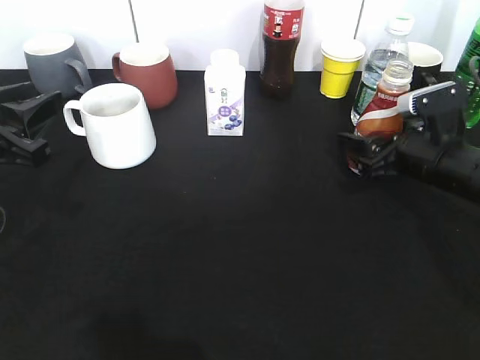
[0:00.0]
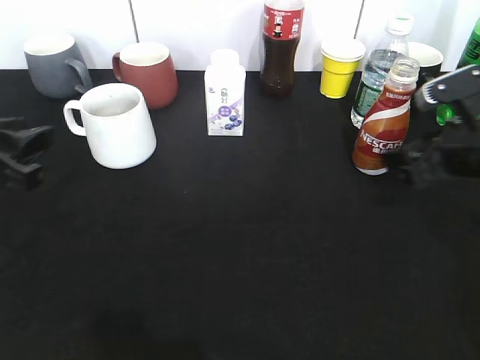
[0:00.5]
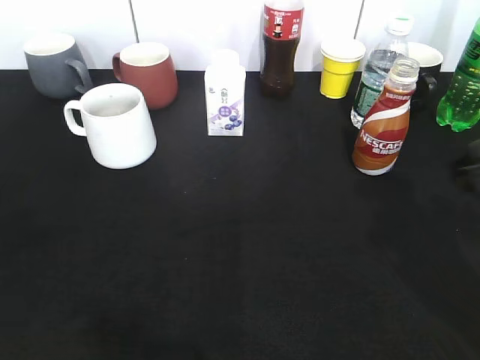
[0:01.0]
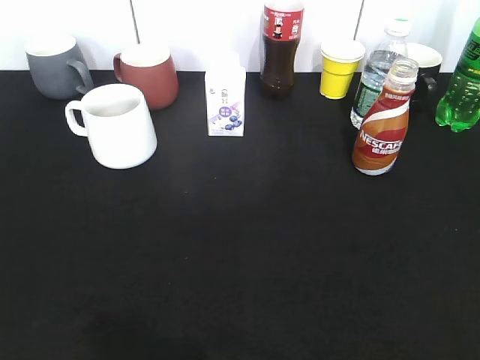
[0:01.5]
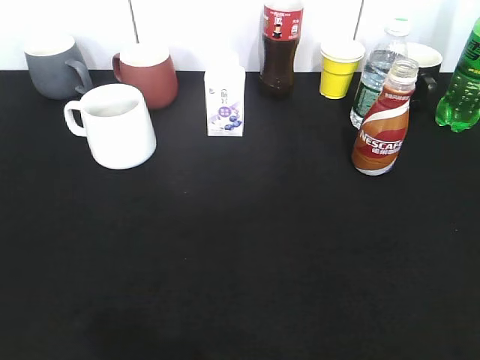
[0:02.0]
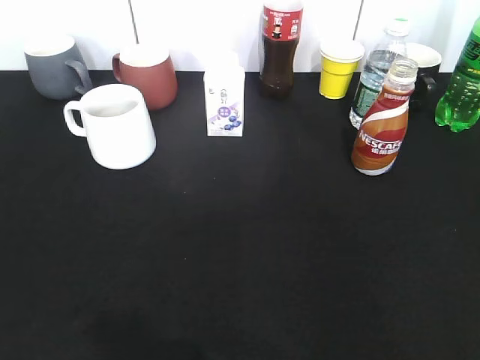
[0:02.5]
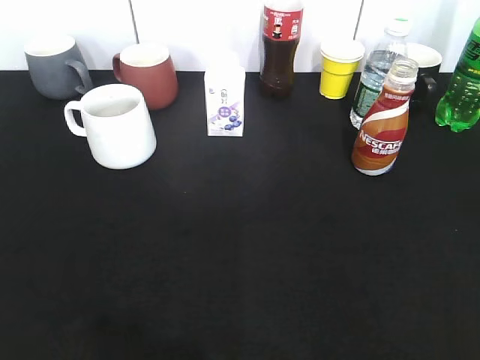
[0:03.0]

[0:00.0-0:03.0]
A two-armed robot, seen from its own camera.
0:00.0 to 0:01.5: The right gripper travels backward and upward by about 35 cm, and closes, while the left gripper travels backward by about 25 cm.

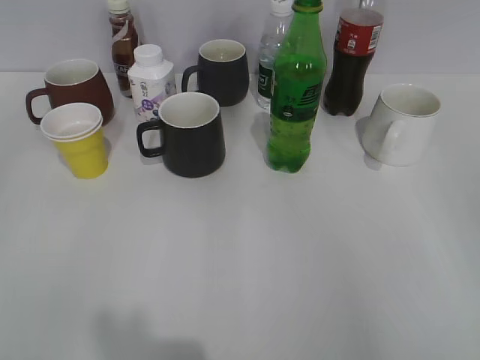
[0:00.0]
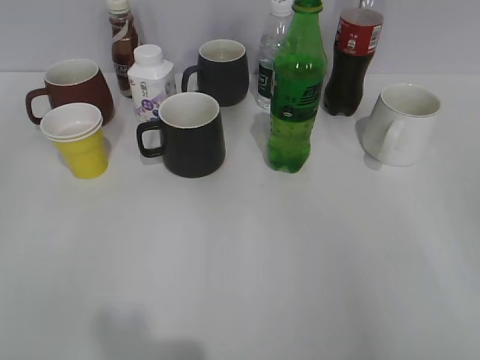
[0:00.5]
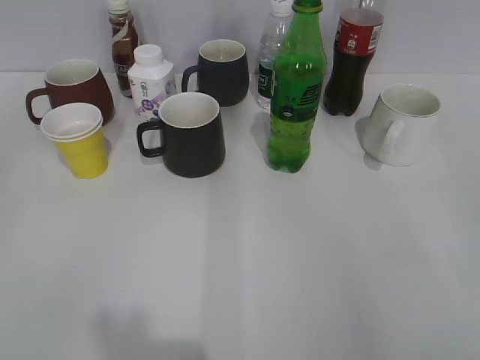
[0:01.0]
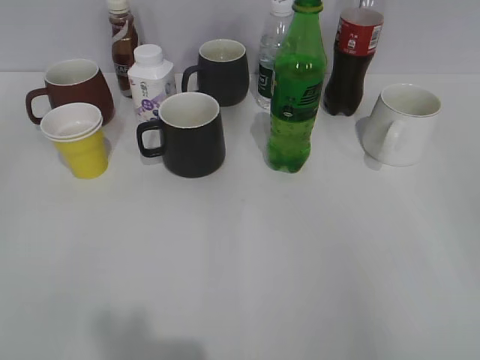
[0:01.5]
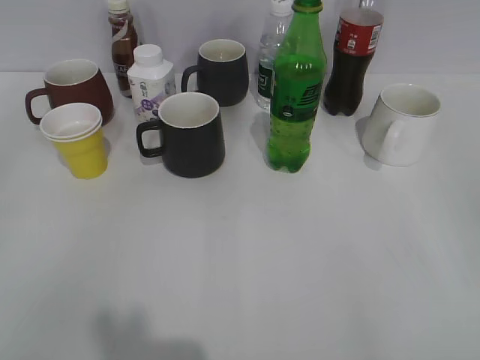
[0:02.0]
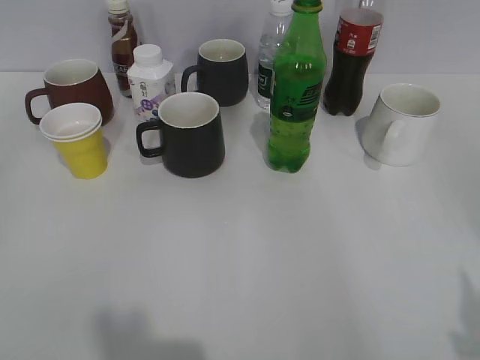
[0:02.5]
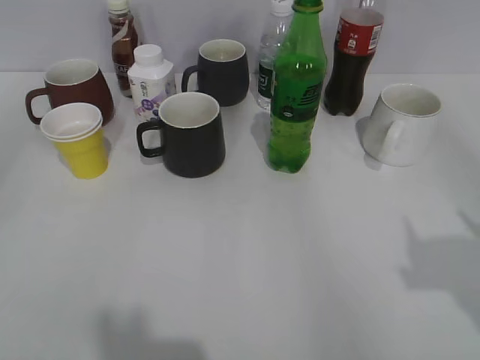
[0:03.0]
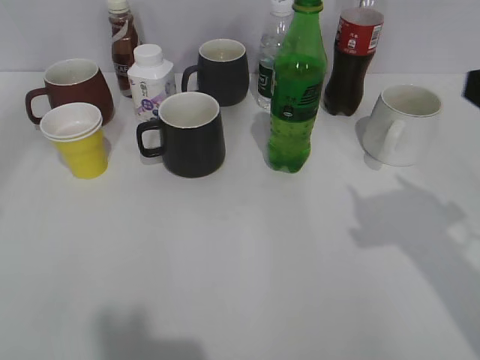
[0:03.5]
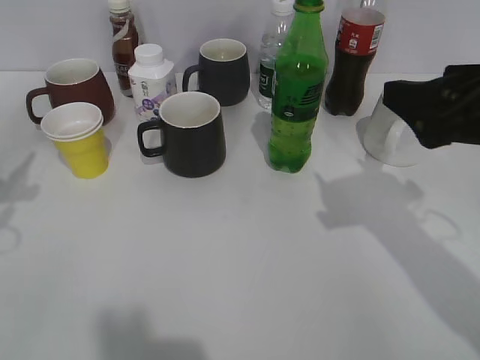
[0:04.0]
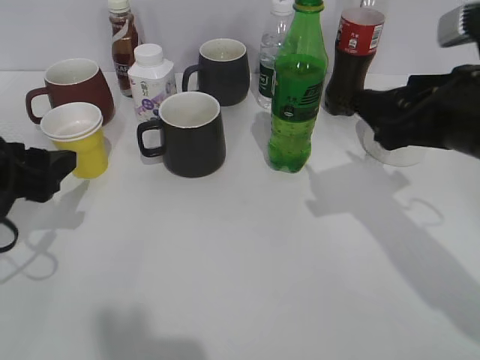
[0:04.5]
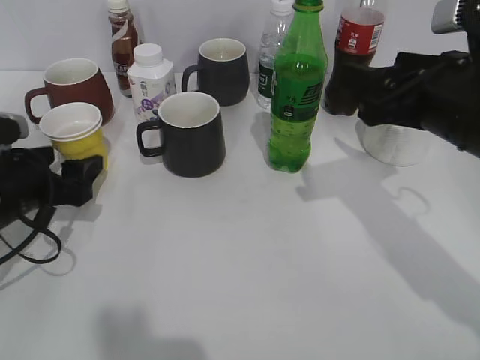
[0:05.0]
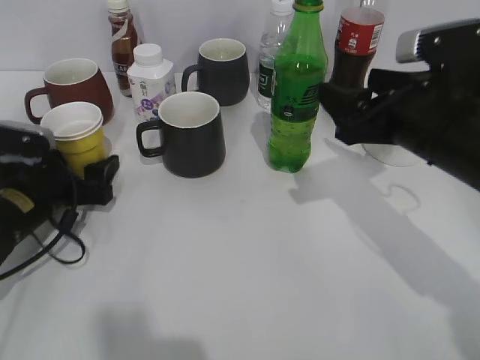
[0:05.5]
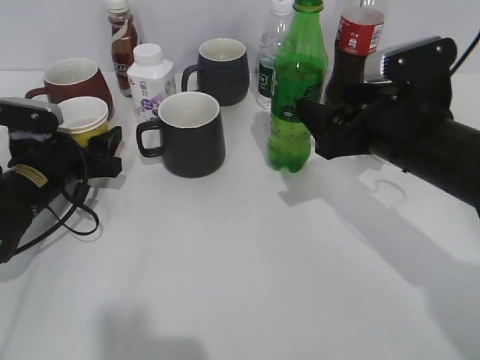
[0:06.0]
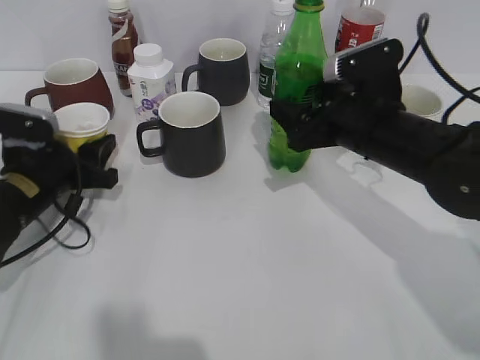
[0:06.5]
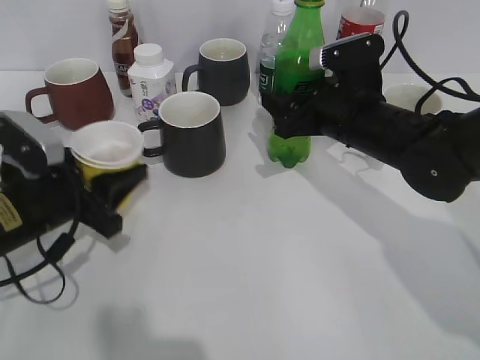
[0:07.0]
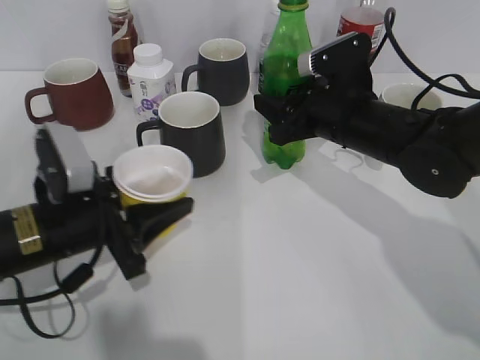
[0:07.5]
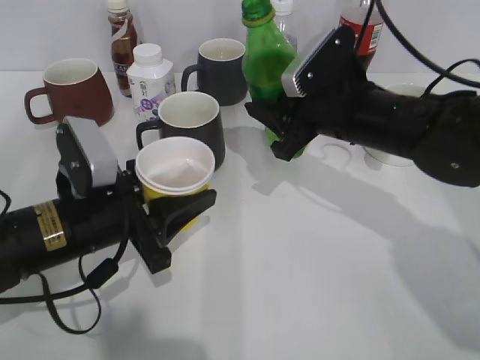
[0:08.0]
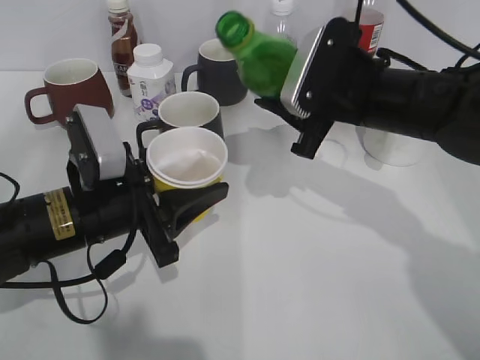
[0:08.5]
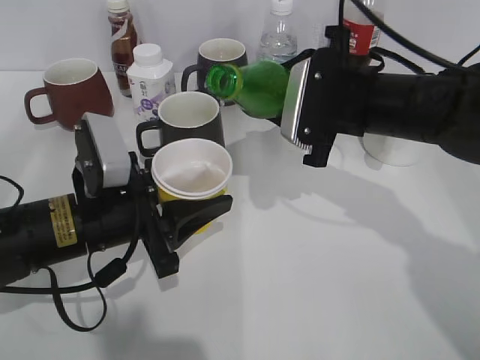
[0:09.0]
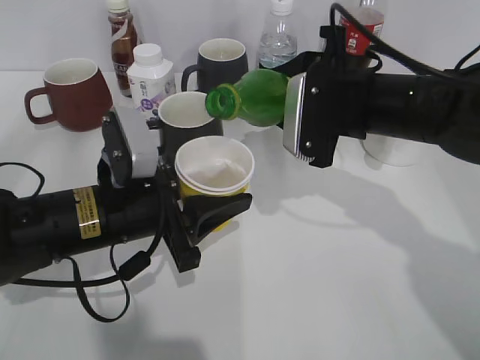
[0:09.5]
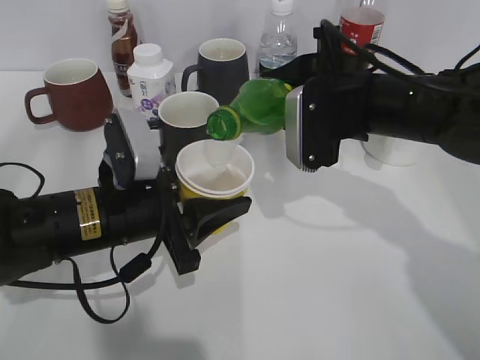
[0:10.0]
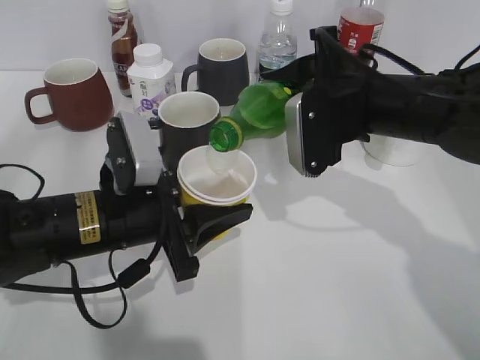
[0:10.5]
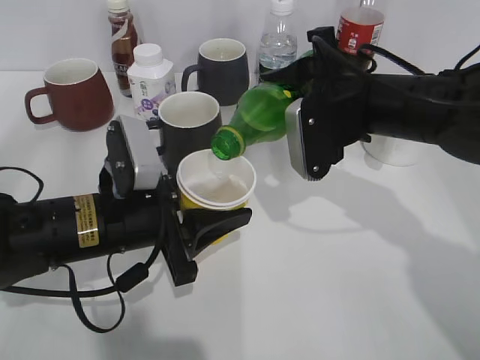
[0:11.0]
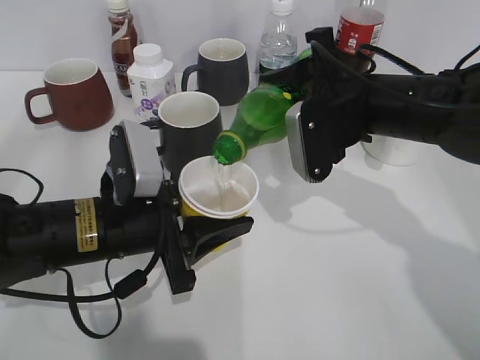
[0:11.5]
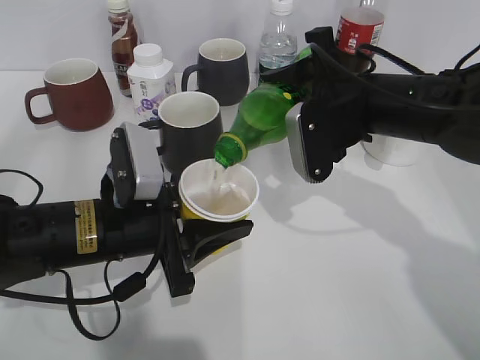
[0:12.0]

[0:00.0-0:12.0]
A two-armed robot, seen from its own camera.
Step, 0:02.5 to 0:07.0: Grasp the bottle with sprite with right gripper.
0:02.0 to 0:04.0: The right gripper moves forward and to the left, about 25 cm. Meanwhile the left gripper moves forward, roughly 25 cm, and opens up.
0:04.0 to 0:06.0: The left gripper goes some 20 cm downward, forward and to the right. The right gripper travels downward and forward by some 10 cm.
0:06.0 to 0:08.0: The left gripper goes some 15 cm backward and to the right, and closes up. The right gripper moves forward, roughly 5 cm, and closes.
0:10.0 to 0:12.0: There are only small adjustments of the grippers.

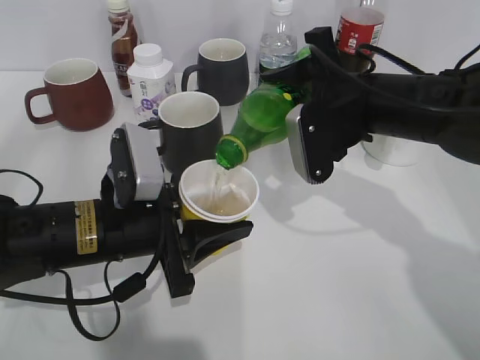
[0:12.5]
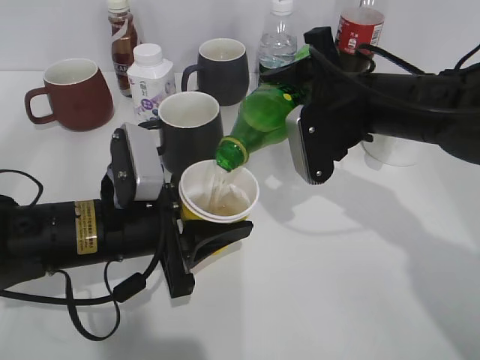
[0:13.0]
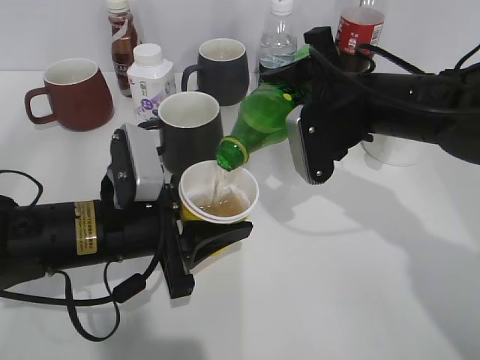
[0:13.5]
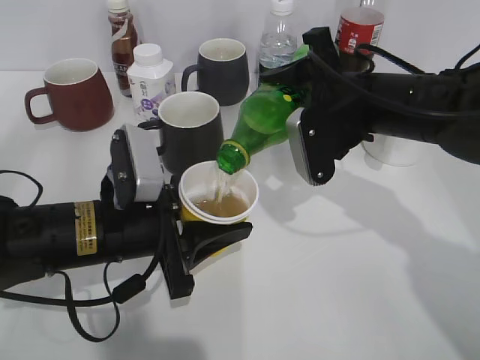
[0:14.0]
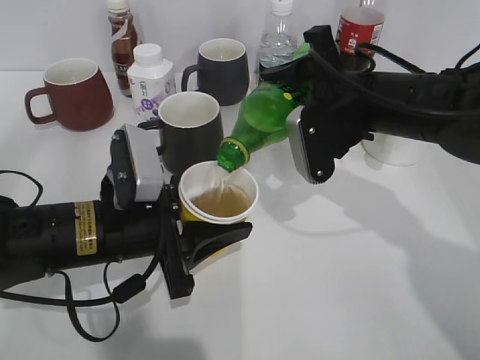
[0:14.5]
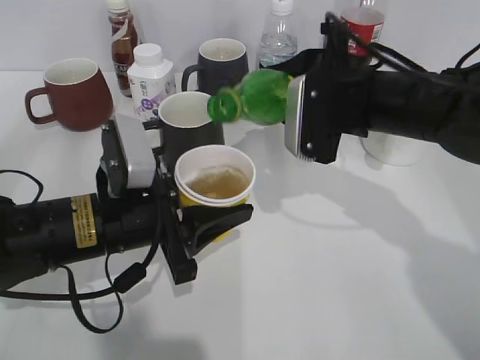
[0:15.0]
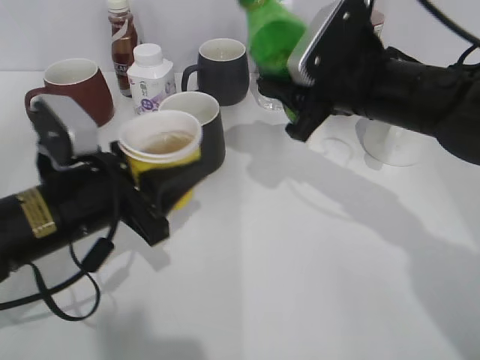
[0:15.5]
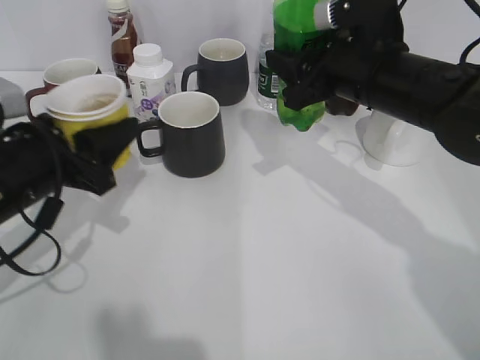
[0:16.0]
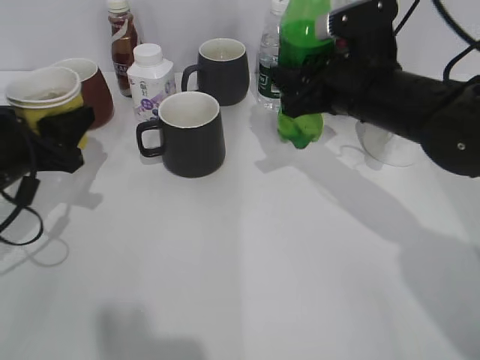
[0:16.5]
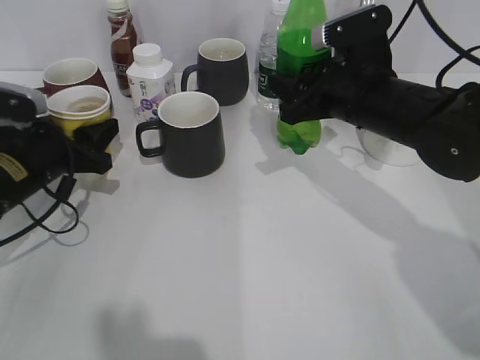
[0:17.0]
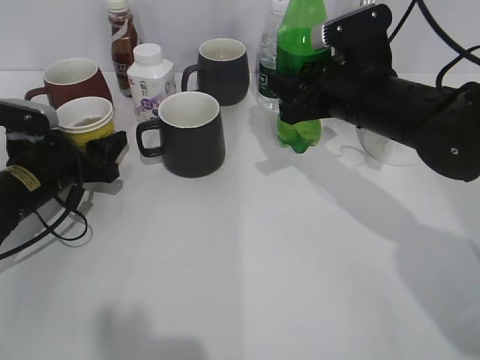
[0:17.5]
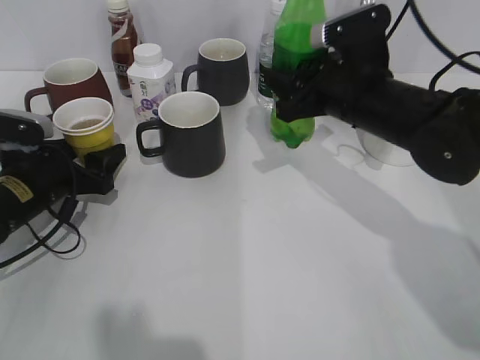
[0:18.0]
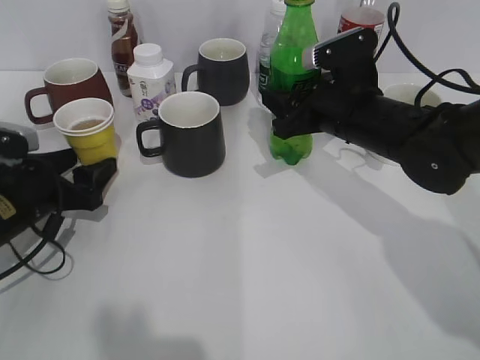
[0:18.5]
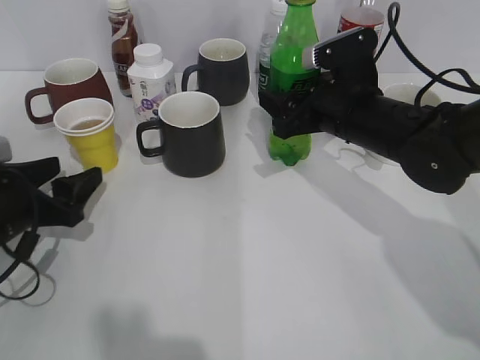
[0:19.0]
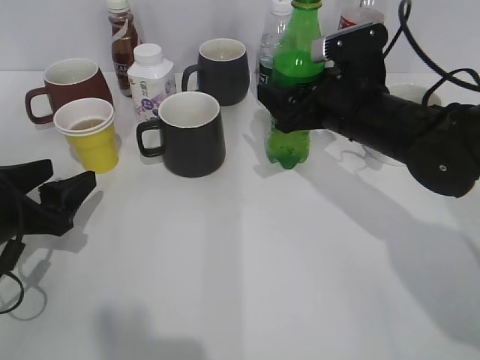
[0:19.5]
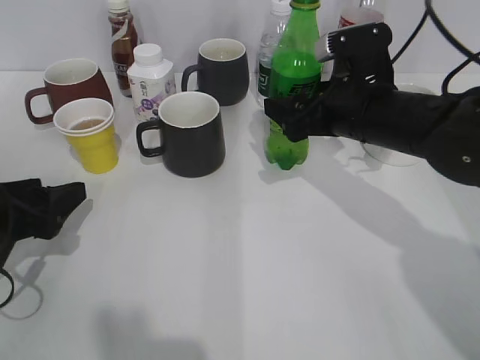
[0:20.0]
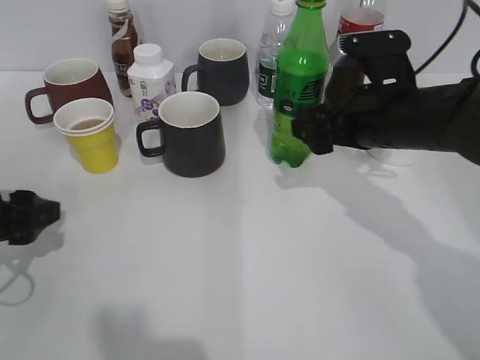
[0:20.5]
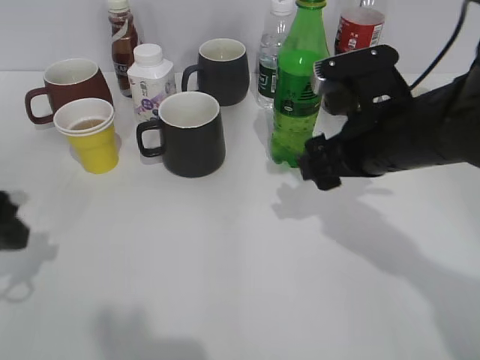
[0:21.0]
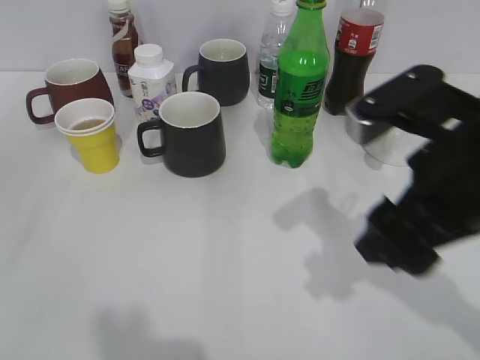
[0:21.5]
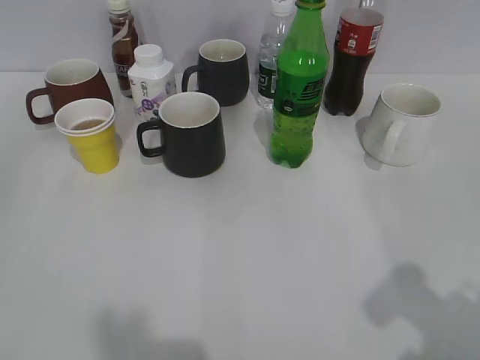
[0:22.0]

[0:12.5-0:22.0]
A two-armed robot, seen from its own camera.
Step, 0:12.5 to 0:14.5: Pour the sprite from bottle to cup with right gripper.
Step, 0:15.5 to 0:17.0: Place the yellow paper cup on the table with left gripper.
Step, 0:17.5 to 0:19.5: Place the sprite bottle on the table with right gripper.
0:12.5 to 0:14.5: Neither gripper changes place.
0:14.5 to 0:16.5: The left gripper goes about 15 cm to the left.
0:16.5 to 0:18.0: The left gripper heads downward, covering roughly 5 cm, and opens up.
0:18.0 to 0:20.0: The right gripper opens; the left gripper shifts roughly 10 cm backward.
0:20.0 to 0:22.0: The right gripper shifts some 30 cm backward, to the right and upward, while the left gripper heads backward and upward, covering approximately 25 cm.

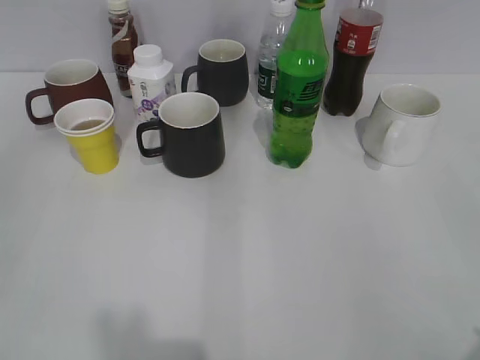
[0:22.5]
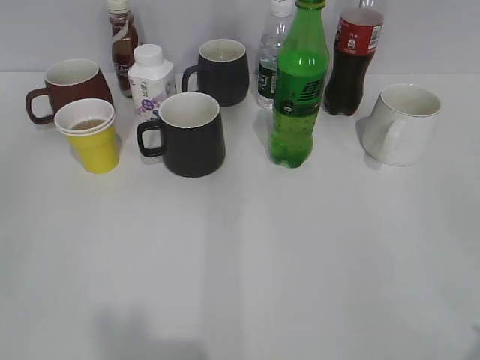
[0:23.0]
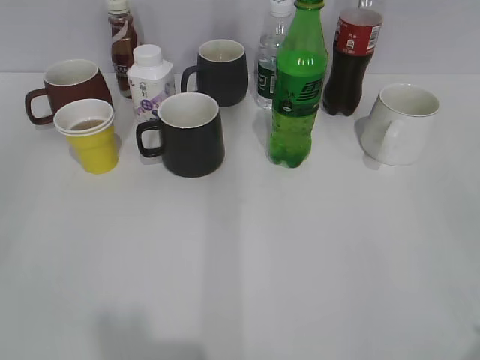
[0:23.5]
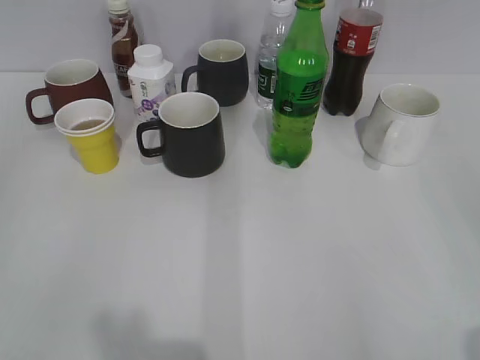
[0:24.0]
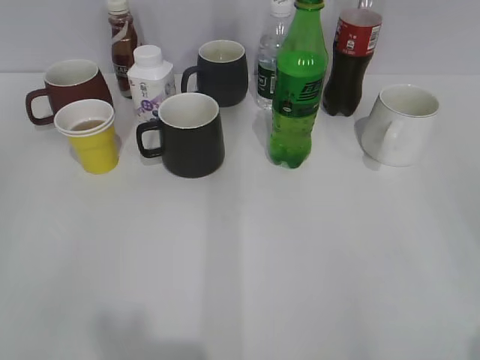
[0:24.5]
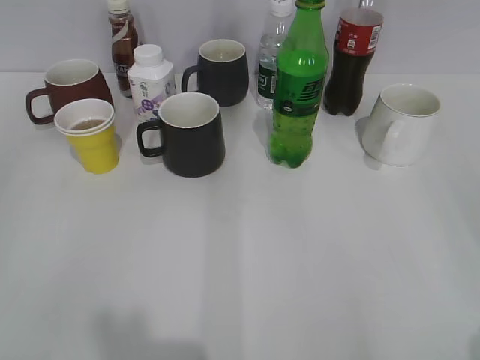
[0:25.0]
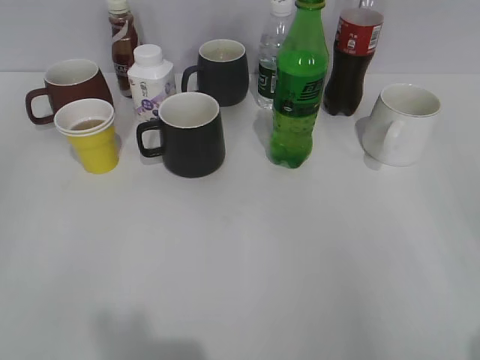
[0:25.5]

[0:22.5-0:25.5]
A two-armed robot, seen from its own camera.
0:24.0 to 0:25.5: Both grippers stay put.
